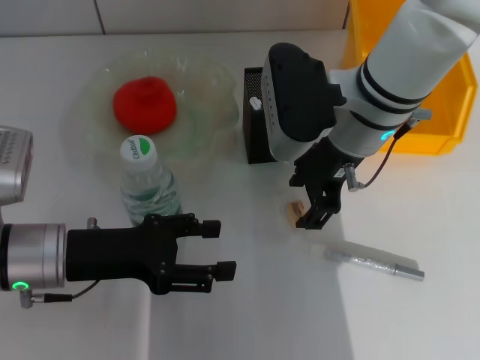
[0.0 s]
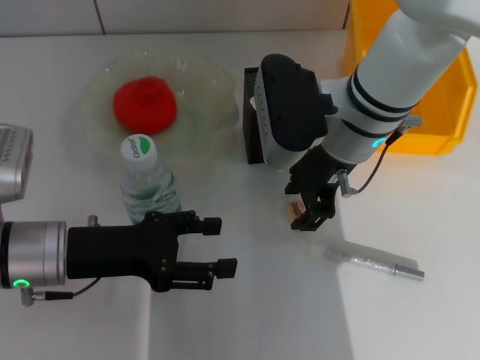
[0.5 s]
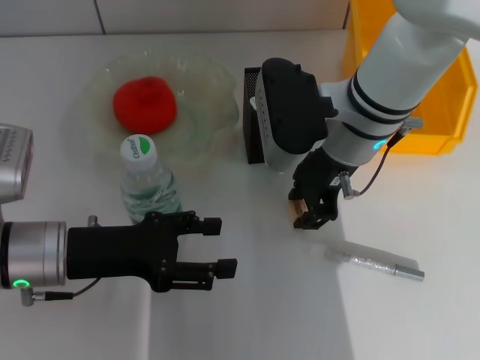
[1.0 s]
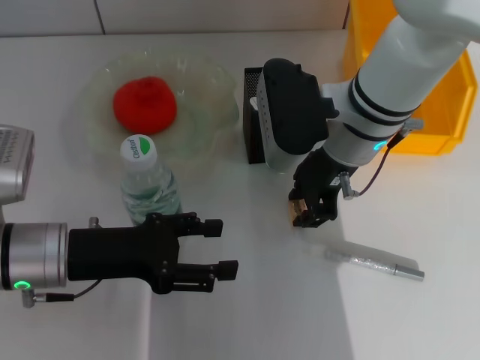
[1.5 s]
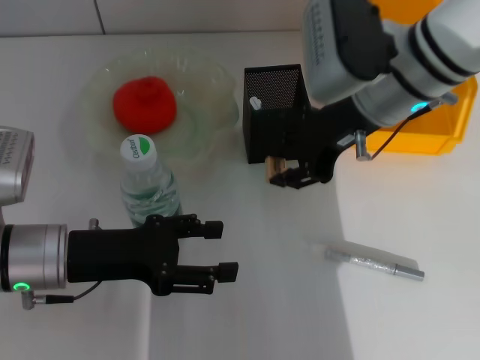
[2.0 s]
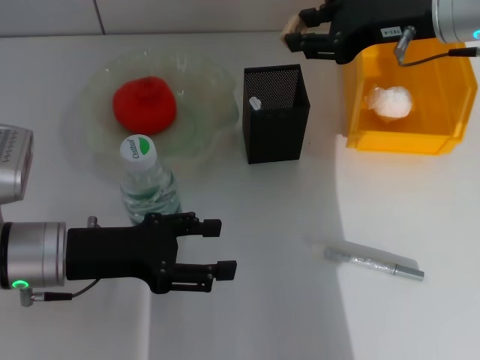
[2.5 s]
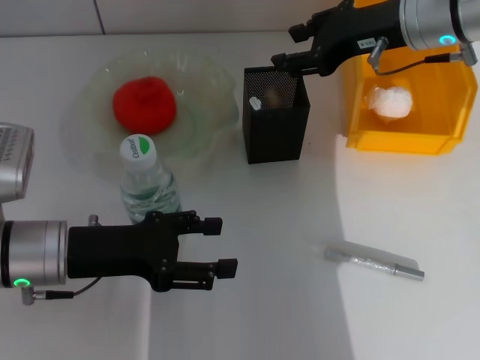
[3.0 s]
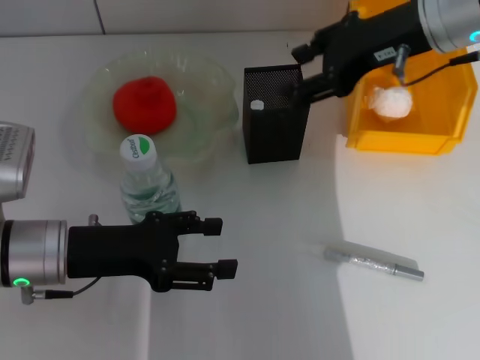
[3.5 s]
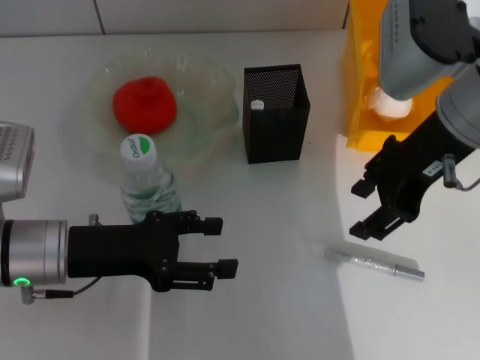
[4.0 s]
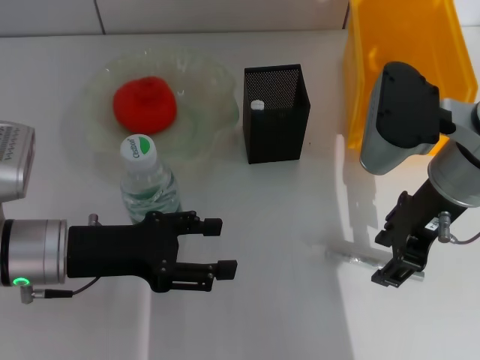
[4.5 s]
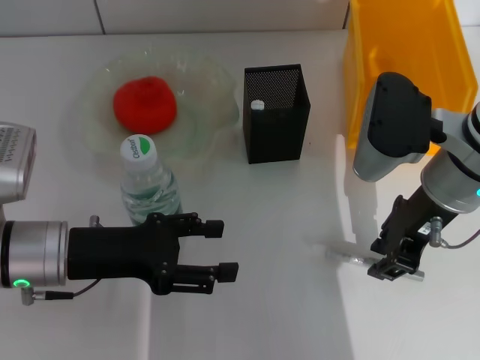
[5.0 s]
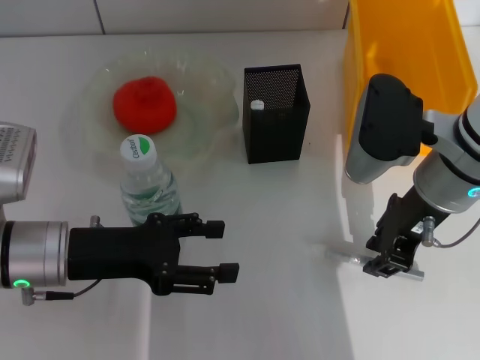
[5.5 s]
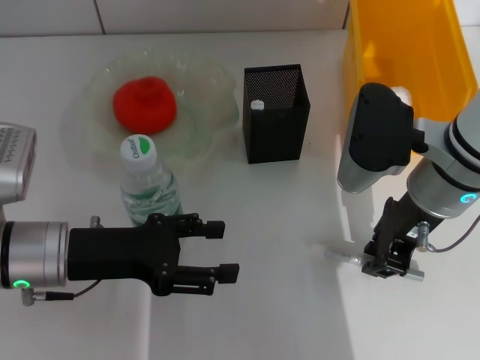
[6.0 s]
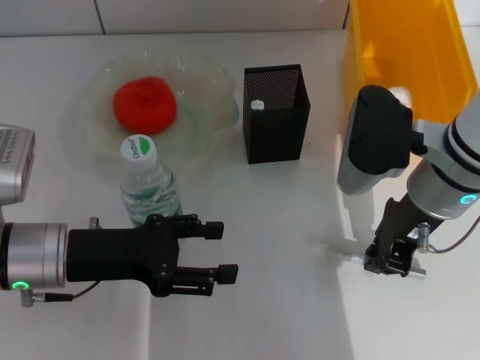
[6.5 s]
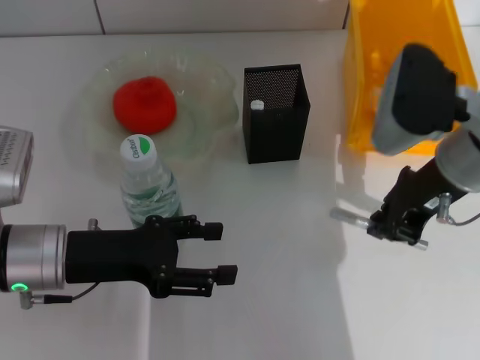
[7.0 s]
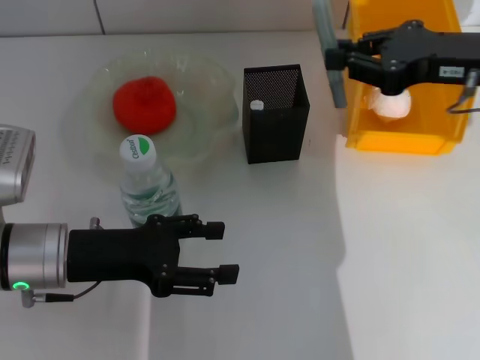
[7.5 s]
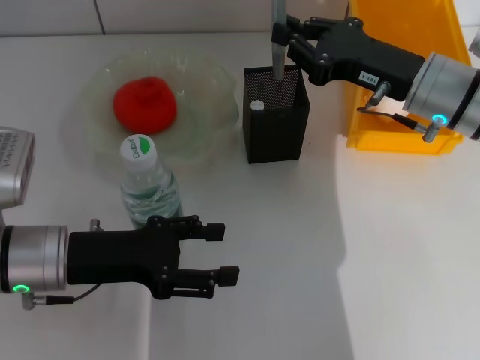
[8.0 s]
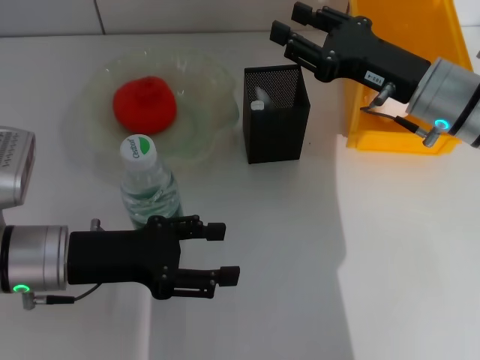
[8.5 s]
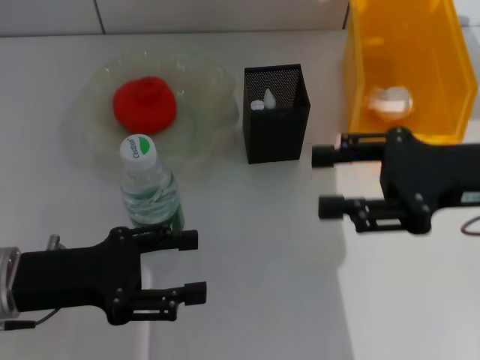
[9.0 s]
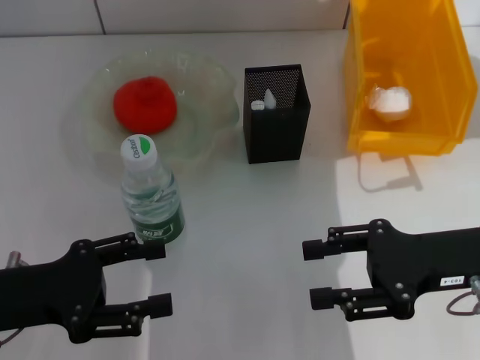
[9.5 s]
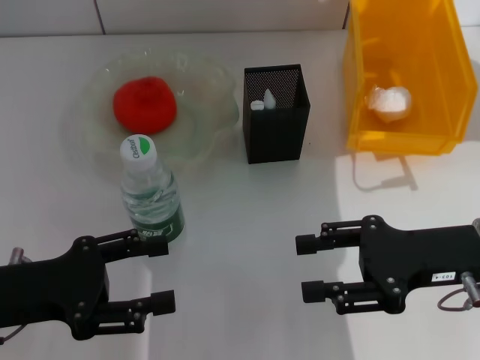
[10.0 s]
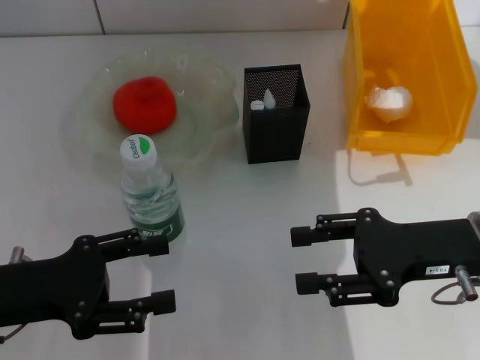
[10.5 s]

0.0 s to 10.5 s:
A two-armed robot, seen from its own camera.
Step, 1.5 to 3.0 s: Put the eraser into the pen holder with the right hand.
Step, 3.5 to 6.5 s: Grab the gray glue with the right hand.
Step, 7.0 to 8.5 s: Place the gray glue into the pen holder with the right hand.
0.0 to 2.0 s: The right gripper changes place by about 5 cm, and closes its fingers.
2.0 to 4.0 s: The right gripper shifts by some 5 cm, and opens its fingers.
4.0 to 6.5 s: The right gripper moves downward, some 10 cm, and closes its fingers.
8.5 to 10.5 s: The right gripper travels backward by approximately 10 cm, and opens, while the left gripper travels to the left by some 5 cm.

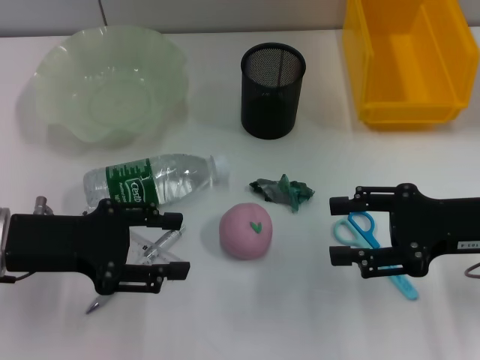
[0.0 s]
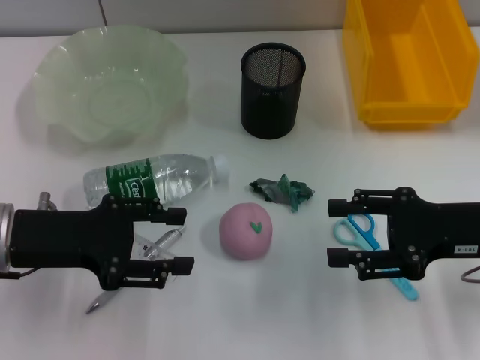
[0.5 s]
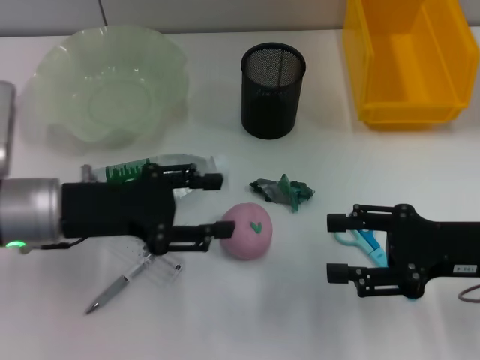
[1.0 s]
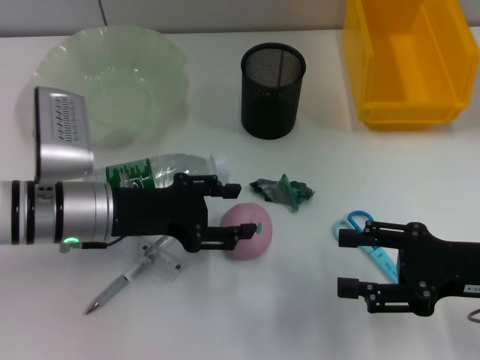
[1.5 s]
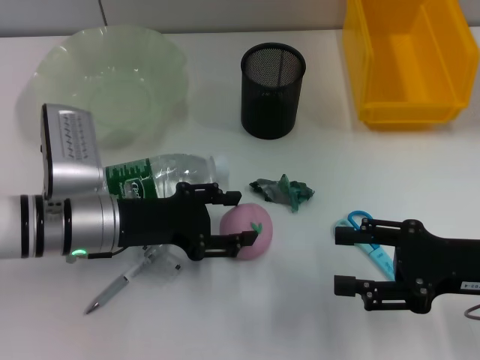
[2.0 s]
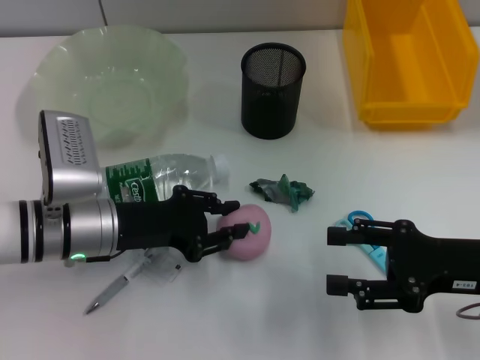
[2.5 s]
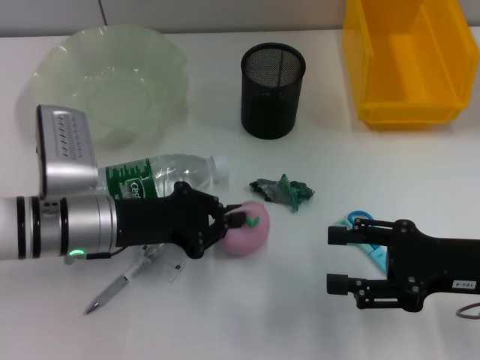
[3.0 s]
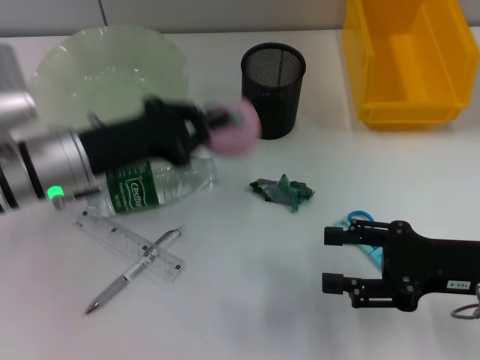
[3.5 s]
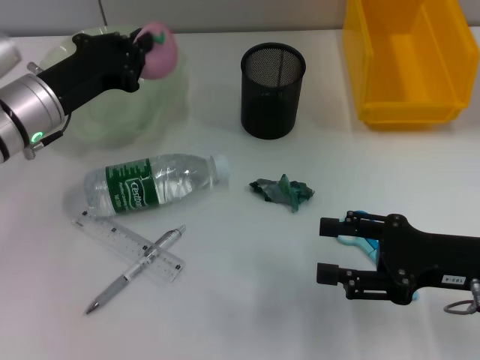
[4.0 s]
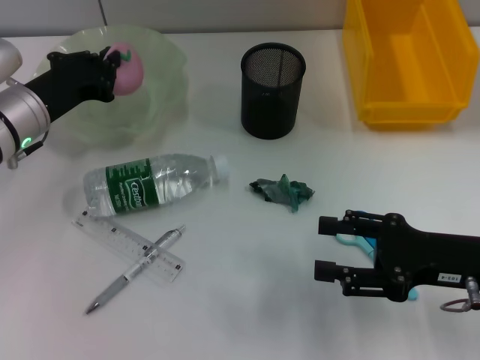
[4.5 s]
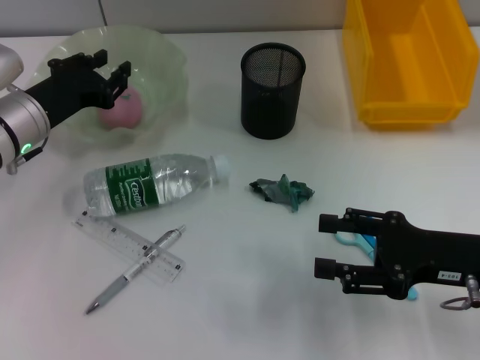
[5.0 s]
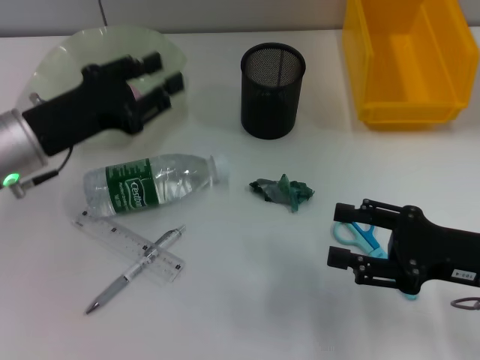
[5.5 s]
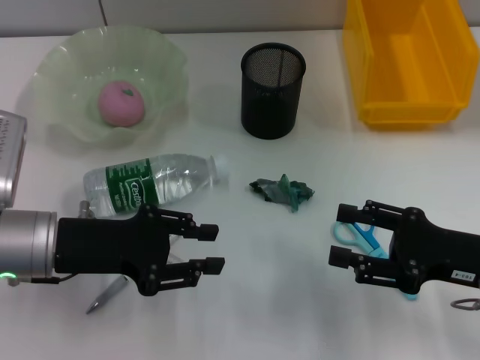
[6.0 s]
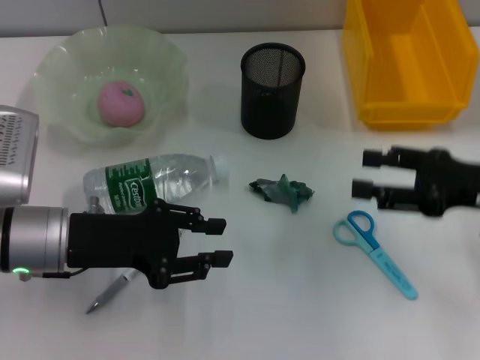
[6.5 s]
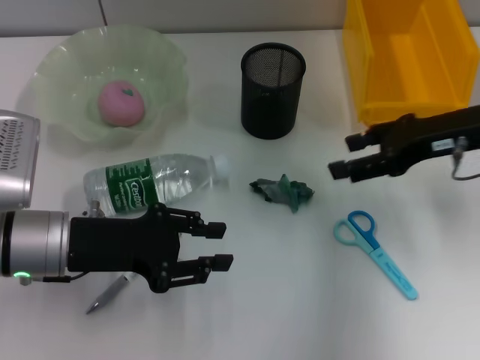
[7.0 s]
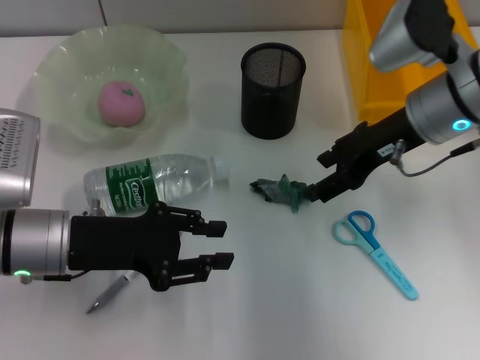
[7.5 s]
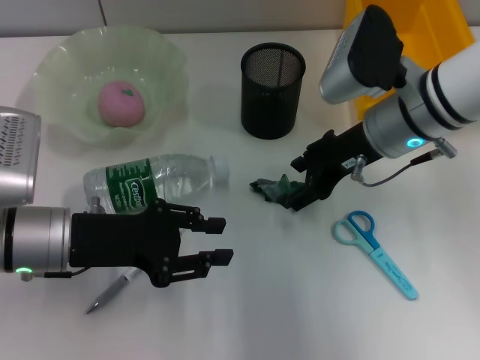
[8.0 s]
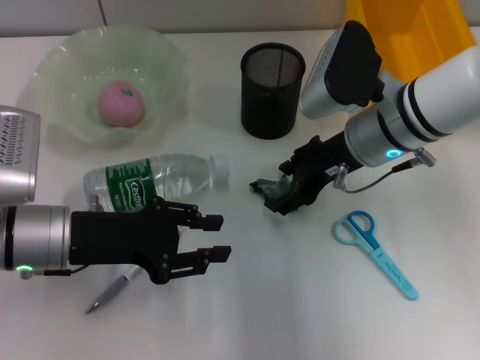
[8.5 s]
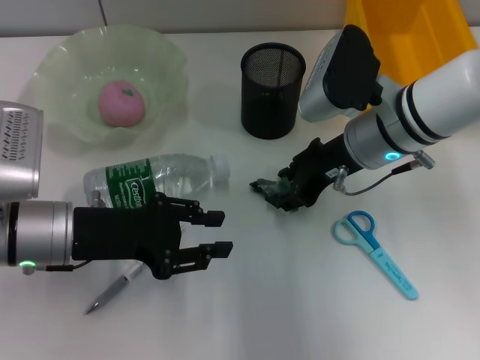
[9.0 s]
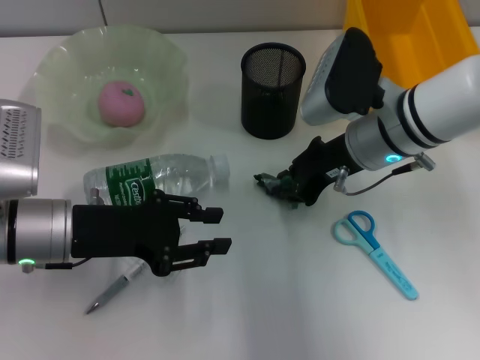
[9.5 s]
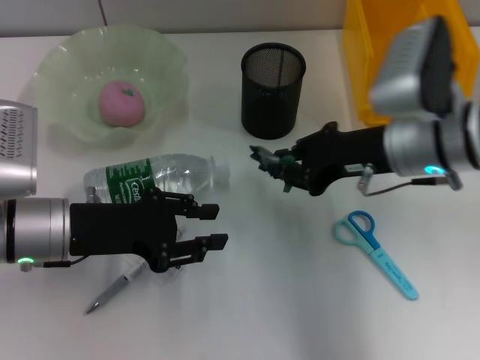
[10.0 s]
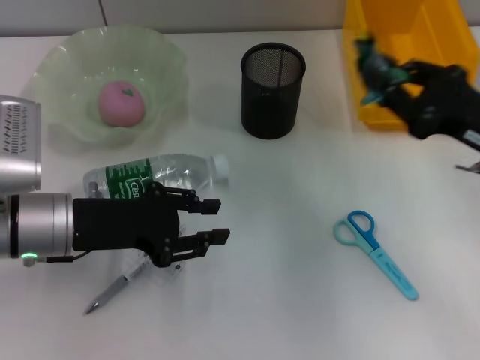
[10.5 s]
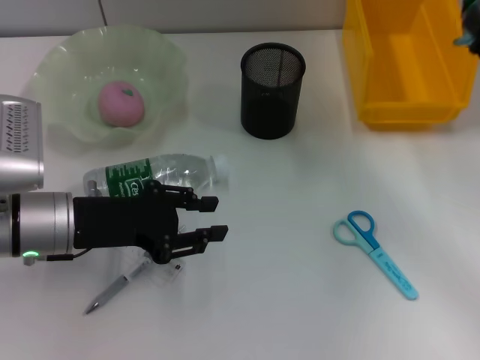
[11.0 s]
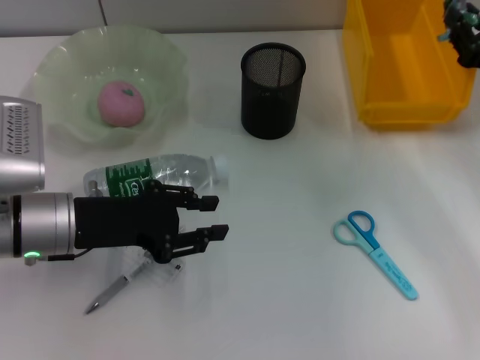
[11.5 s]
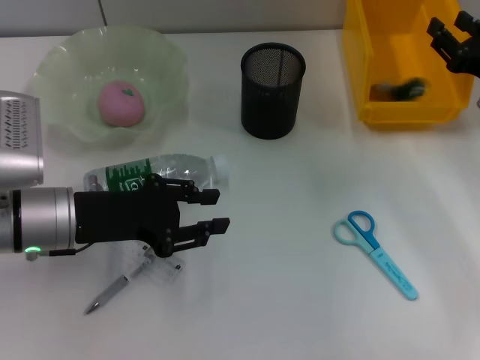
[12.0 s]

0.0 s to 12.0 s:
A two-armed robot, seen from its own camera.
Step, 0.0 to 2.5 s: Grab the peach with the left hand.
Step, 3.0 to 4.5 s: Place the peach into the fruit bowl with the left hand.
Step, 5.0 to 9.0 s: Grab the plastic with the right hand.
0.0 to 2.0 s: The left gripper is displaced to the right and downward by some 10 cm.
2.0 to 4.0 s: The left gripper heads forward, covering roughly 5 cm, and closes its fingers.
4.0 to 6.0 s: The left gripper moves backward, some 10 cm, and opens up.
6.0 to 8.0 s: The right gripper is displaced forward, to the left and upward by about 20 cm.
8.0 to 10.0 s: The right gripper closes its fingers.
10.0 to 12.0 s: The right gripper moves to the right, roughly 15 cm.

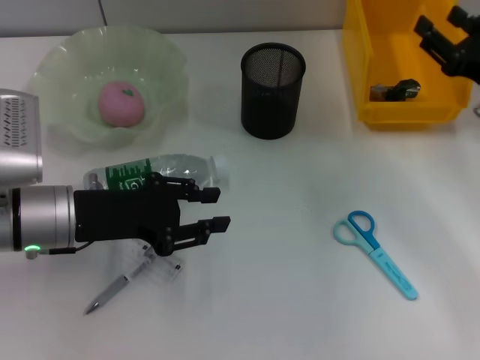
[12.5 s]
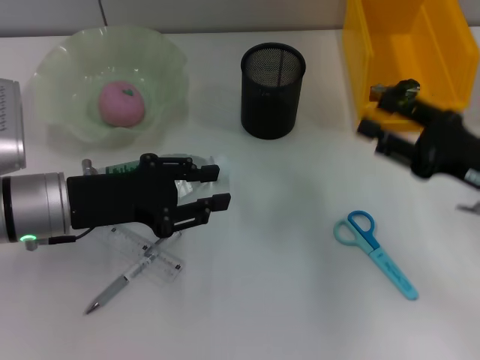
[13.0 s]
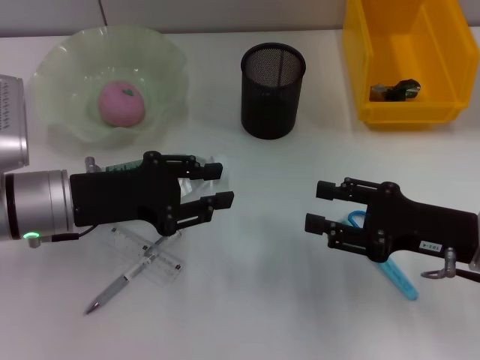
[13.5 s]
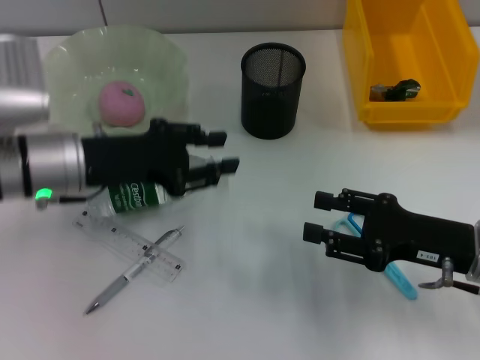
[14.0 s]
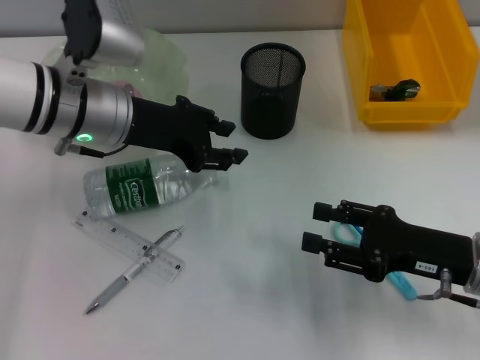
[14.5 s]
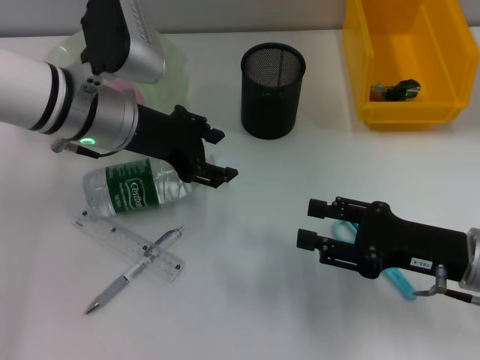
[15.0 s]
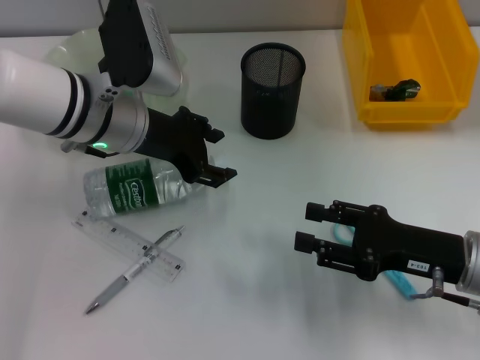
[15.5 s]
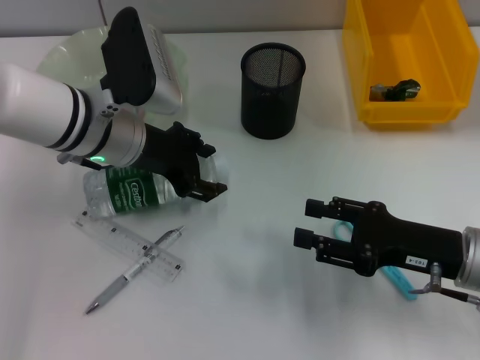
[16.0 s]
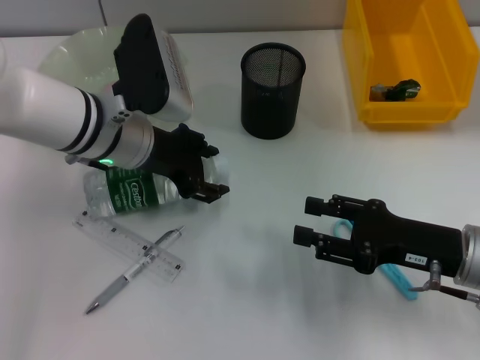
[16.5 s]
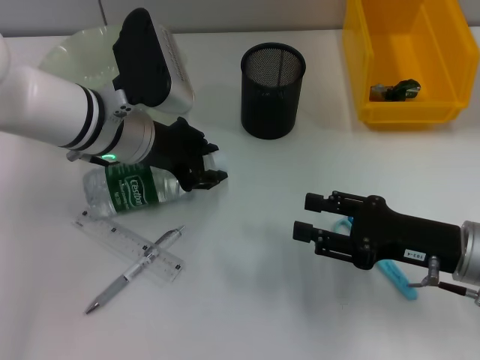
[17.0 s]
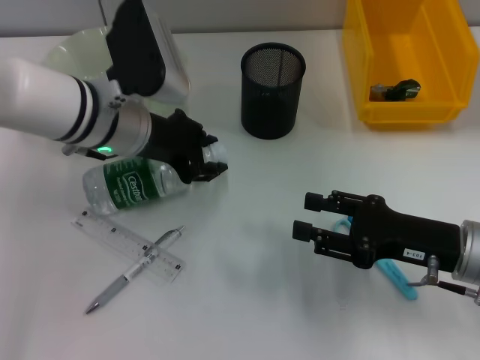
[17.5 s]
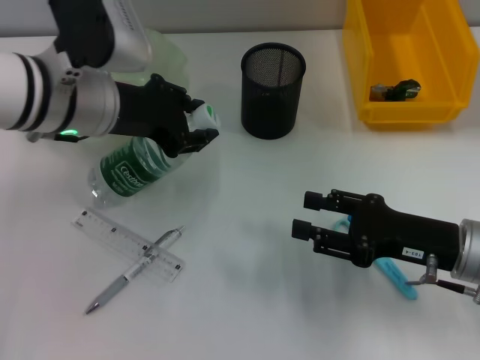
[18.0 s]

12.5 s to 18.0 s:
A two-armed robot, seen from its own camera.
Step, 12.5 to 17.0 s: Grab the water bottle with the left hand.
12.5 to 14.5 s: The right gripper heads backward and to the left, covering some 10 cm. Meanwhile the left gripper moves forward, upward and to the right, some 10 cm.
14.5 to 16.0 s: The grippers move only a little.
16.0 to 18.0 s: The left gripper changes place by some 5 cm.
